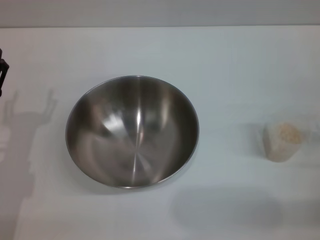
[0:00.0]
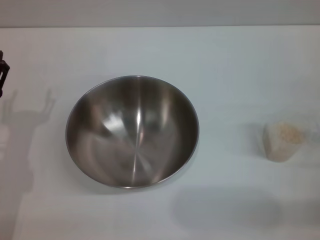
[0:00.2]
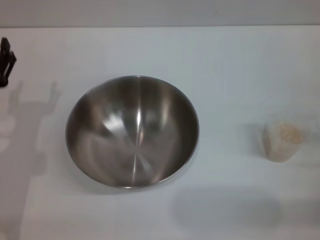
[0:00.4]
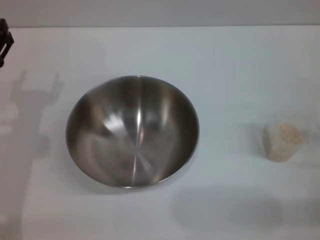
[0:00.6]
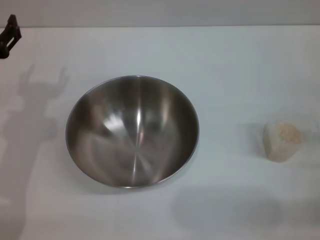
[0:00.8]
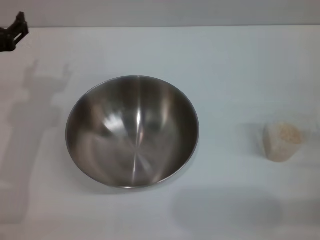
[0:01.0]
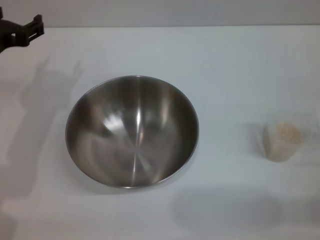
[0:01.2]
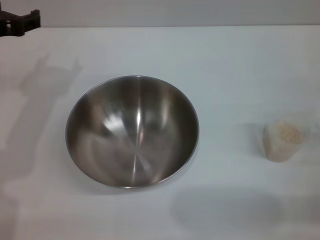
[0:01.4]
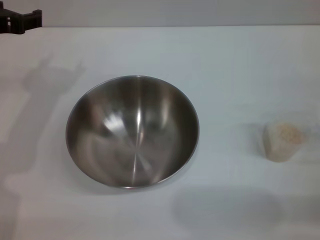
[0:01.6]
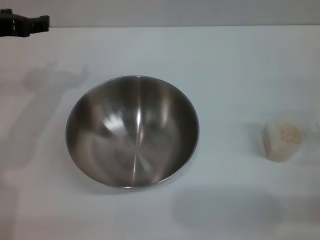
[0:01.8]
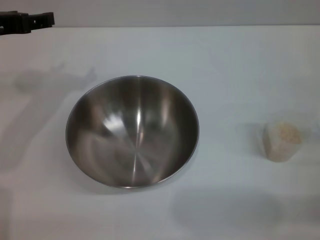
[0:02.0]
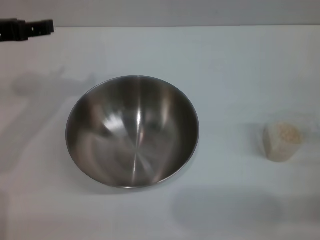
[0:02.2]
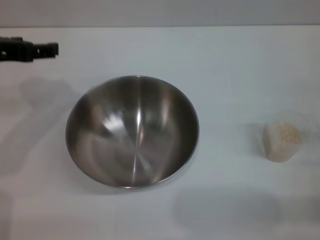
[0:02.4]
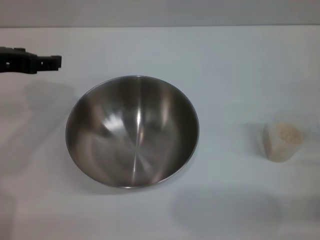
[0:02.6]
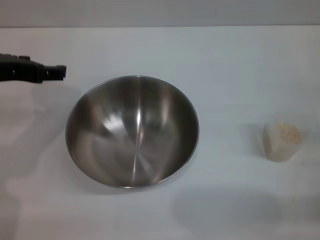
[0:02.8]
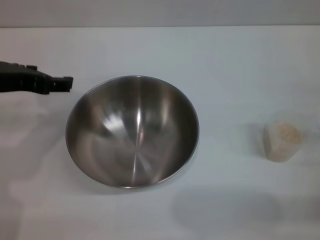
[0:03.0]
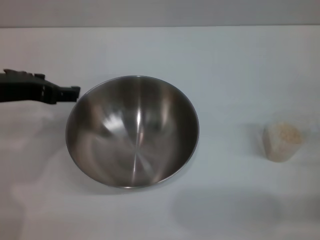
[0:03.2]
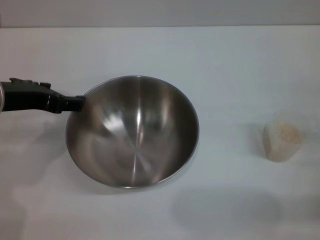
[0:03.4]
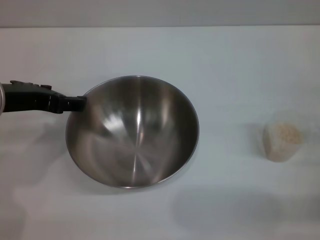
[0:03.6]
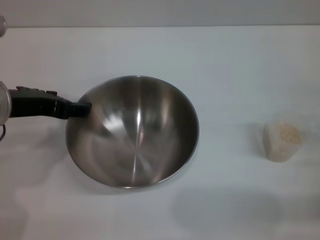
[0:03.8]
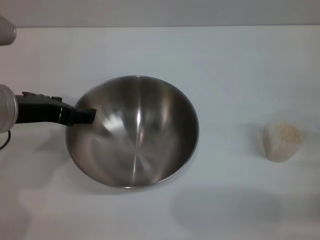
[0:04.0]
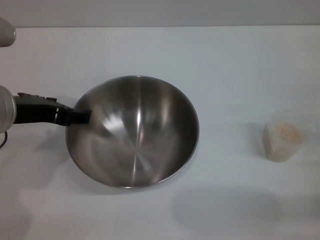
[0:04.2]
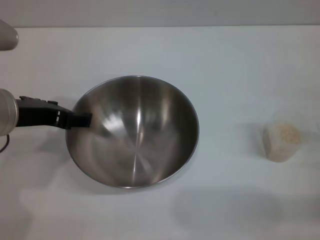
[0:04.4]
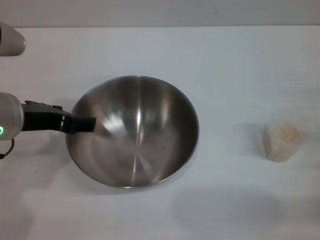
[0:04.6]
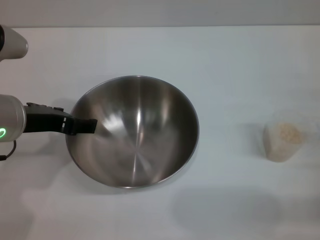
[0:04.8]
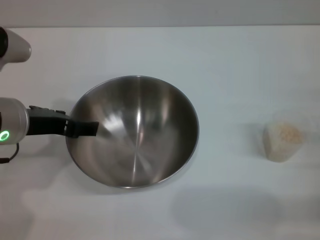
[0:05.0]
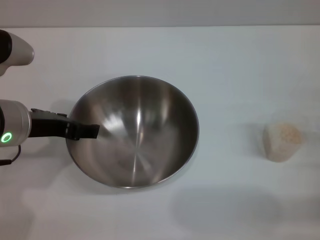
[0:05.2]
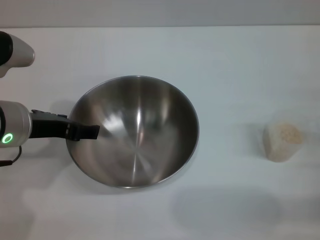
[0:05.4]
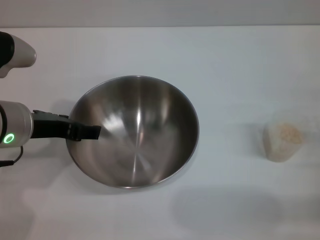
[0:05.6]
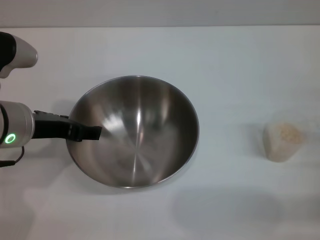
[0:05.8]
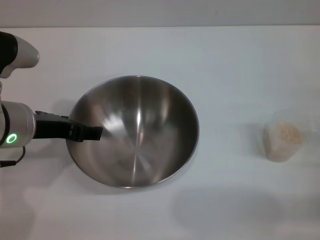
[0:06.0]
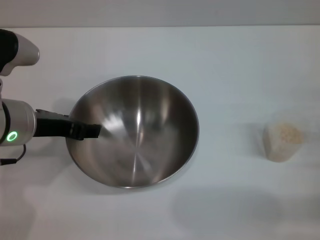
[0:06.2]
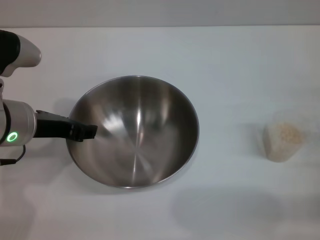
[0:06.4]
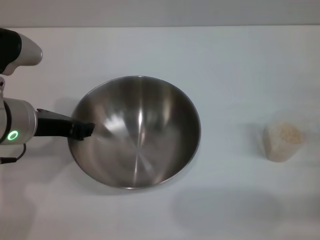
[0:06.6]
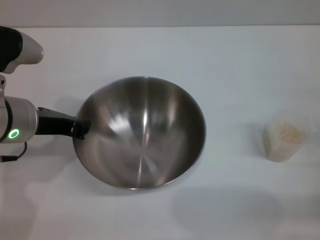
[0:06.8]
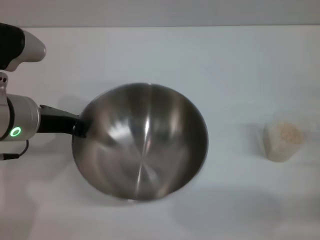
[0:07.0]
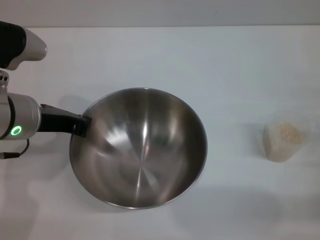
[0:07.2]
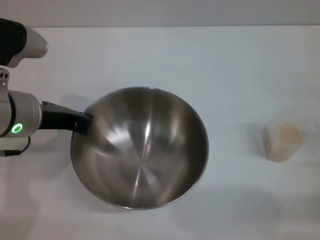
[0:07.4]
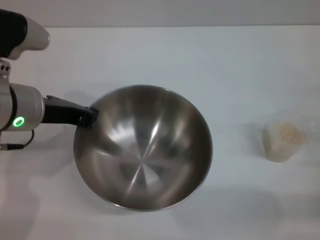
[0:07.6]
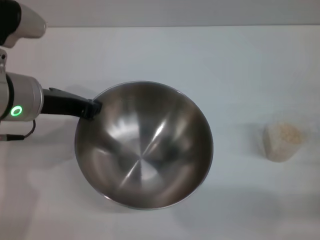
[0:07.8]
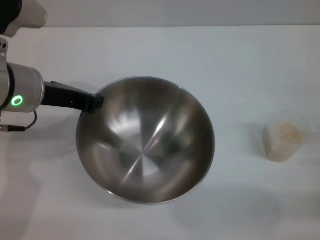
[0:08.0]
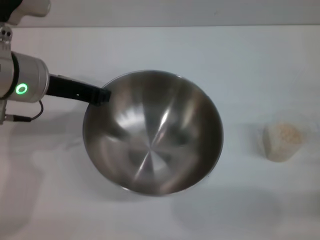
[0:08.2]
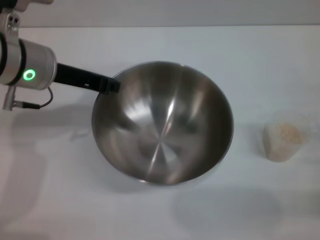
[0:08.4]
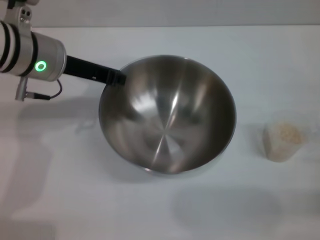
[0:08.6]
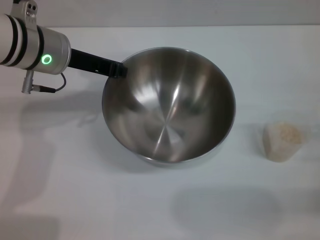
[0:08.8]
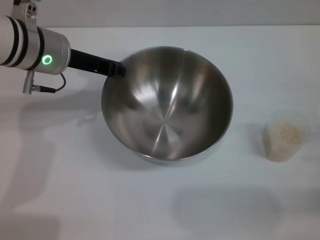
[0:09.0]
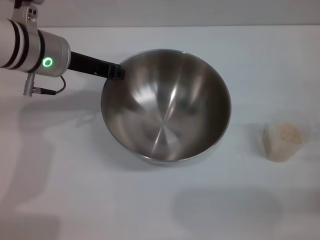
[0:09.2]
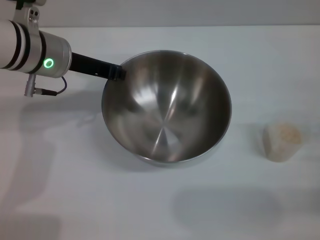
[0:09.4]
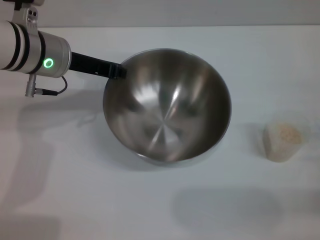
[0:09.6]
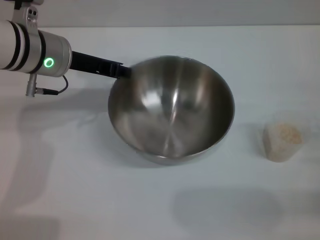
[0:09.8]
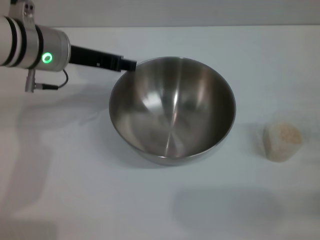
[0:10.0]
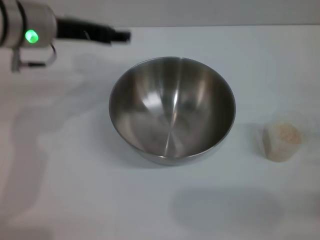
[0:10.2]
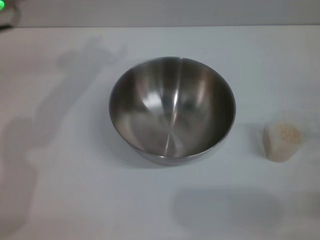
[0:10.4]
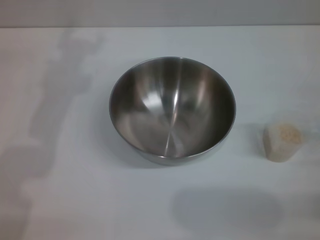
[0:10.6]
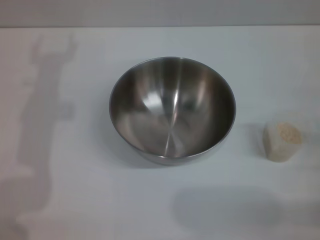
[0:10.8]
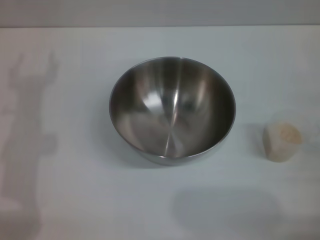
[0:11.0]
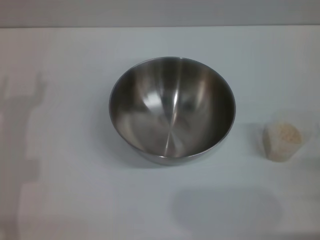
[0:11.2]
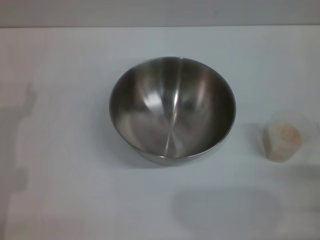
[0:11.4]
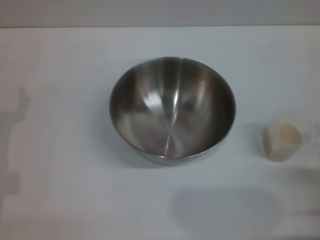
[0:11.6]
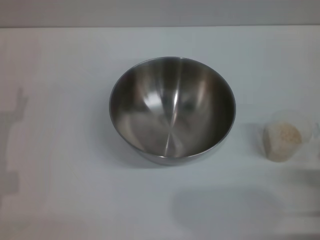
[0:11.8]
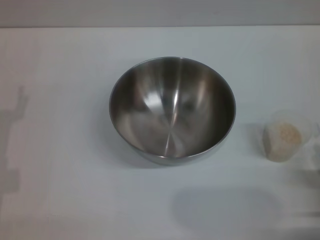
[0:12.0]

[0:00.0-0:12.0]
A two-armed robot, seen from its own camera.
Task of the whole recording: Place the bowl in the middle of the table with one hand and pour the rice from the grain cup into it with the other hand.
Step, 0:00.0 to 0:08.8: Pick up the bowl with the left gripper.
Step, 0:09.2 to 0:10.0: Place the bowl in the center of view with the left gripper.
0:00.0 to 0:01.6: The left gripper moves upward and forward, some 20 cm.
0:01.6 to 0:03.0: The left gripper moves about 5 cm.
0:03.0 to 0:04.4: There are only small adjustments of the grippers.
0:04.4 to 0:06.0: The grippers make only small movements.
0:06.0 to 0:07.6: The left gripper closes.
0:07.6 to 0:09.0: The left gripper heads forward, covering about 10 cm.
0:09.0 to 0:10.4: The left gripper moves upward, about 5 cm, and opens up.
0:10.4 to 0:12.0: The right gripper travels backward by approximately 5 cm; the left gripper is displaced downward, backward and to the left by roughly 25 cm.

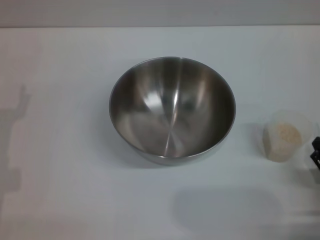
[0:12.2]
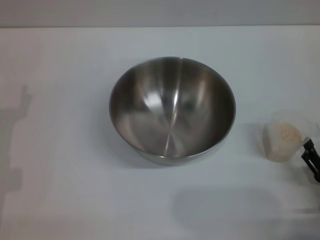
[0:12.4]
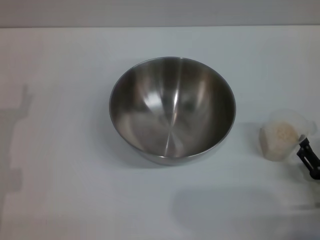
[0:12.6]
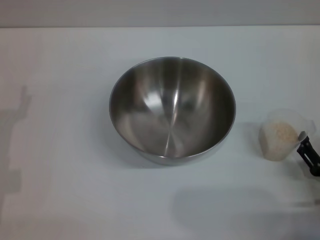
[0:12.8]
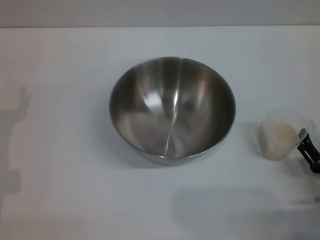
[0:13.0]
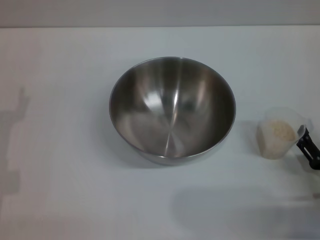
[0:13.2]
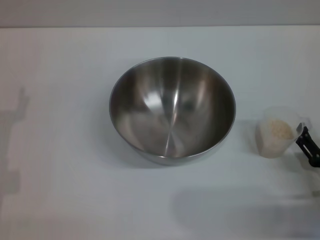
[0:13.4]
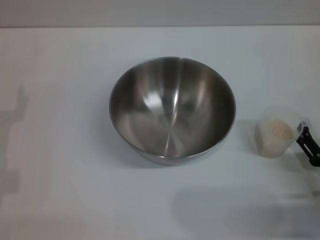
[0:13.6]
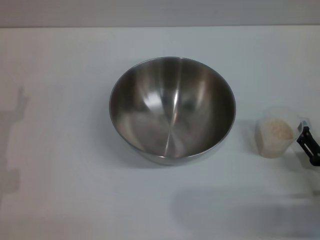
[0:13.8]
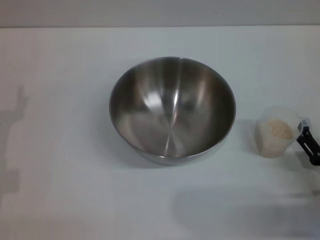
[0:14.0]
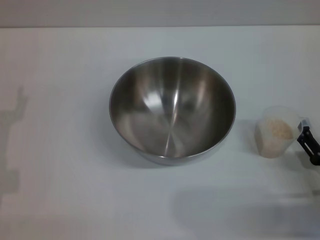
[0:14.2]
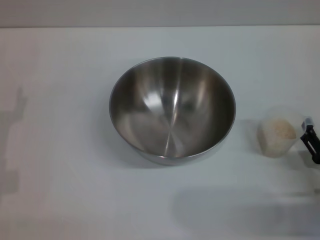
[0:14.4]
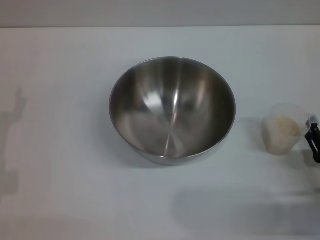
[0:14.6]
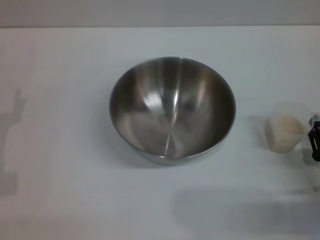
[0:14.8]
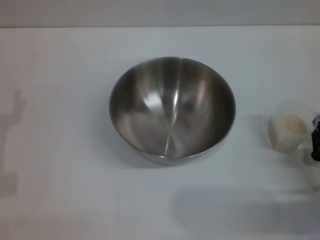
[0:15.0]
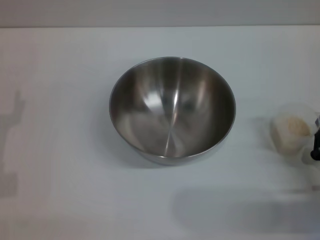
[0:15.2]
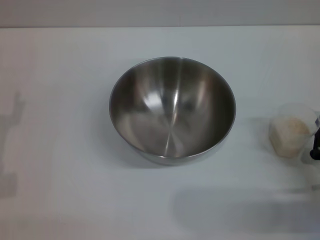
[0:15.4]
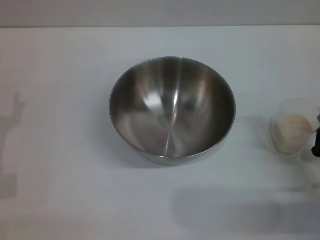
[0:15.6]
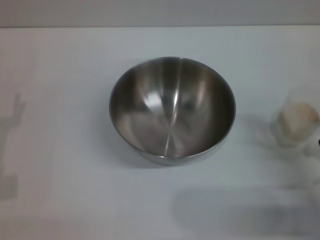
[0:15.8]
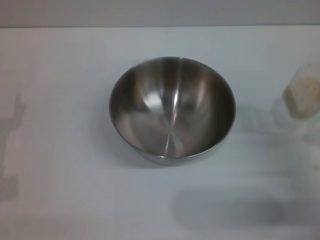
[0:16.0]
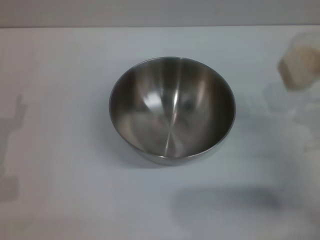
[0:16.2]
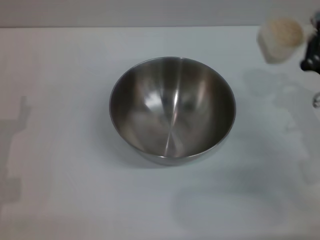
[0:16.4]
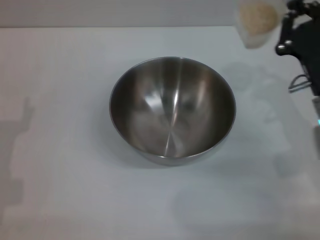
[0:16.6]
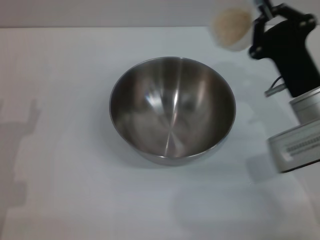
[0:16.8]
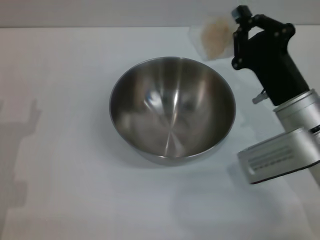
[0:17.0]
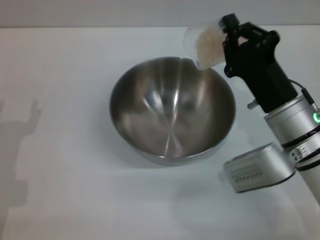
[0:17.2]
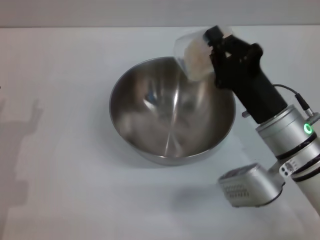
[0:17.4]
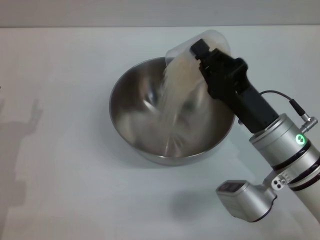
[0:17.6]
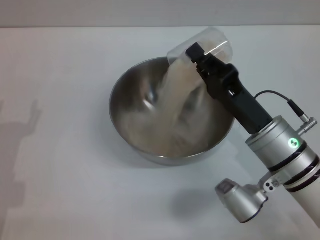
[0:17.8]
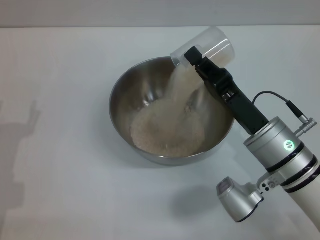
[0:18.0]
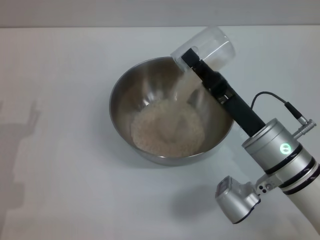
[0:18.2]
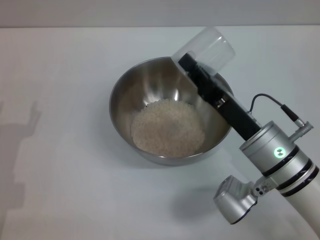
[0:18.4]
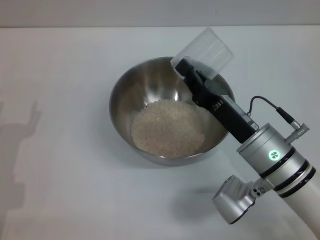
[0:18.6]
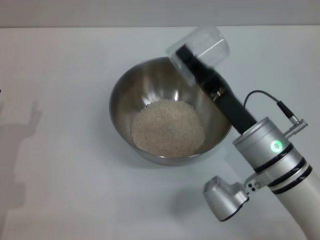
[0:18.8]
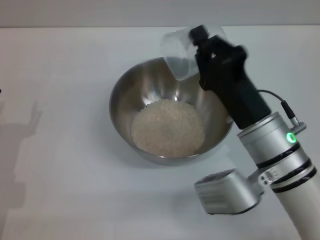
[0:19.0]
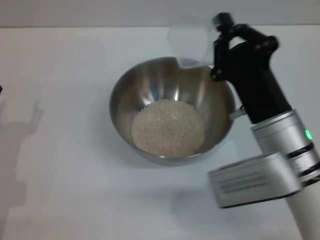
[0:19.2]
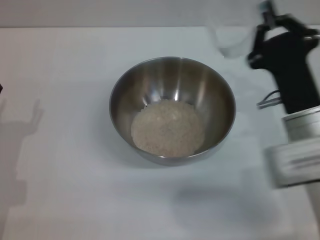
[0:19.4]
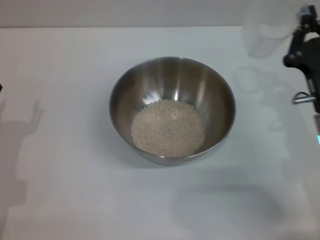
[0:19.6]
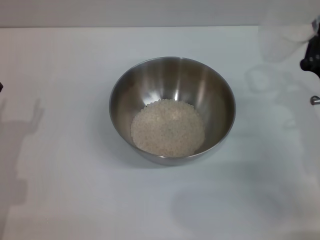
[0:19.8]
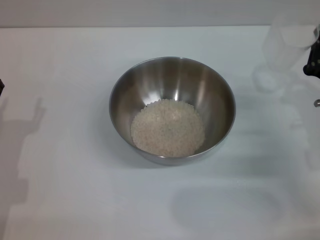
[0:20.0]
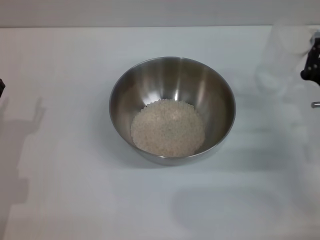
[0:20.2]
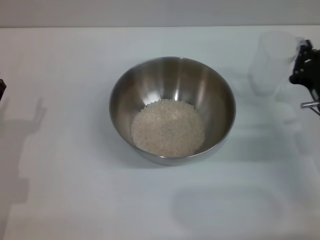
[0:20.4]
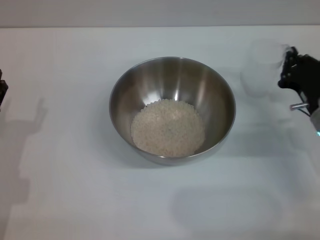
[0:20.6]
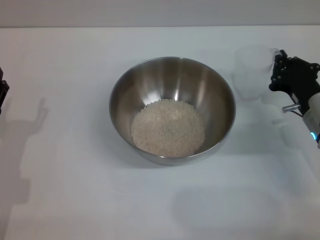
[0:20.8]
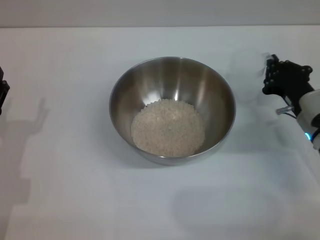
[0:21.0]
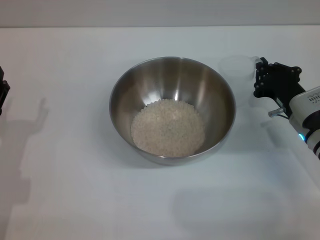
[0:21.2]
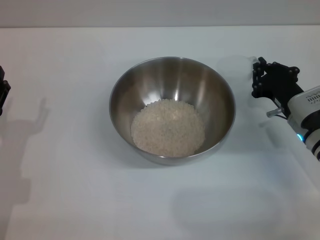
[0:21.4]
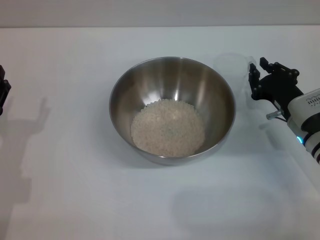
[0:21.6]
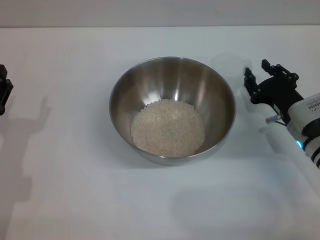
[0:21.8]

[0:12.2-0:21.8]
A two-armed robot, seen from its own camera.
Task of the whole recording: Place the bowl in the middle of the table with one hand and pour the rice from the grain cup into it with the other hand.
Step, 0:16.0 to 0:19.4: Pour the rice from the cup into the bowl with the right gripper.
0:12.2 to 0:13.8: The grippers stay close to where they were, moving slightly.
0:13.8 to 0:15.4: The right gripper closes its fingers.
0:15.4 to 0:17.0: The right gripper goes some 15 cm forward, to the left and upward.
0:17.0 to 0:18.6: The right gripper changes place by approximately 5 cm.
0:18.6 to 0:20.2: The right gripper heads to the right, covering roughly 15 cm.
0:20.2 to 0:21.8: The right gripper ends up approximately 5 cm from where it was.
